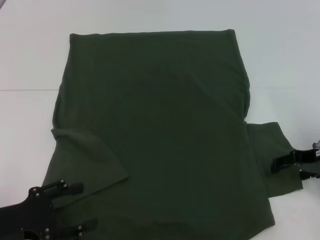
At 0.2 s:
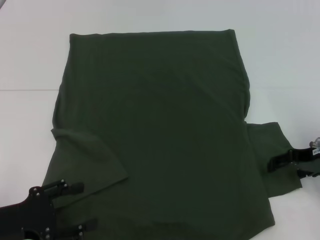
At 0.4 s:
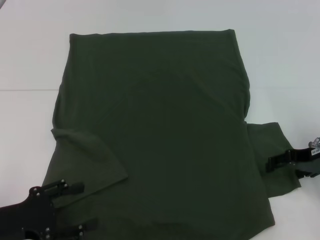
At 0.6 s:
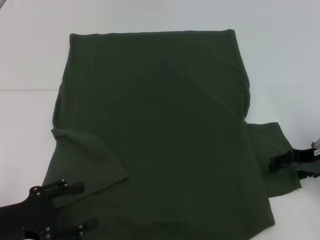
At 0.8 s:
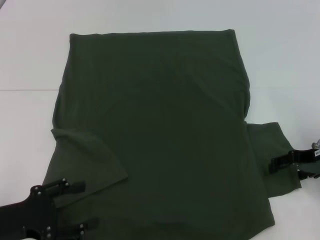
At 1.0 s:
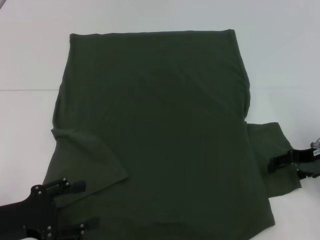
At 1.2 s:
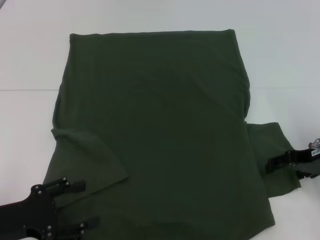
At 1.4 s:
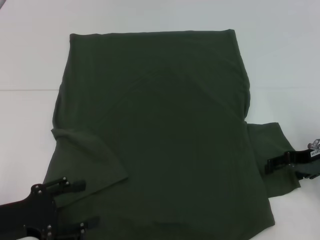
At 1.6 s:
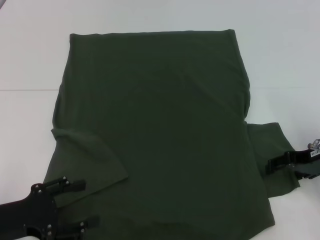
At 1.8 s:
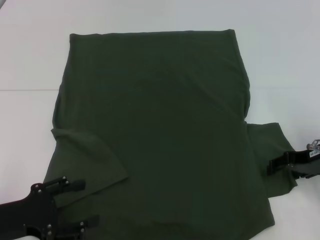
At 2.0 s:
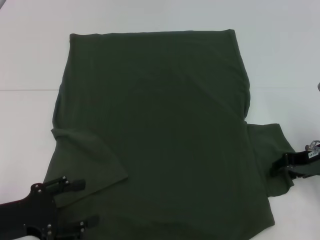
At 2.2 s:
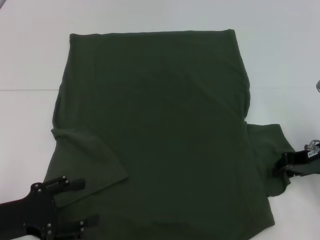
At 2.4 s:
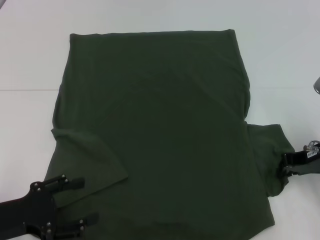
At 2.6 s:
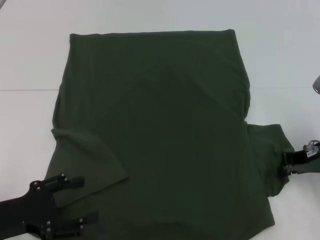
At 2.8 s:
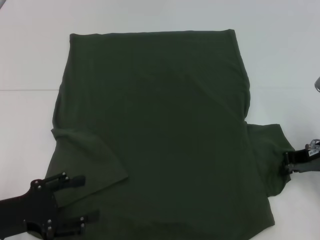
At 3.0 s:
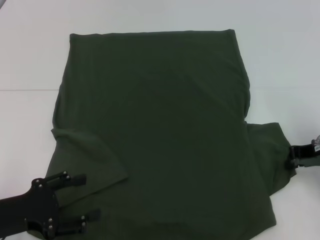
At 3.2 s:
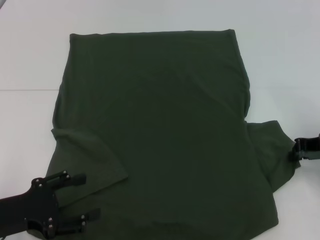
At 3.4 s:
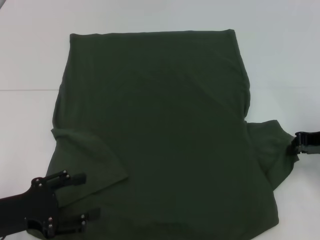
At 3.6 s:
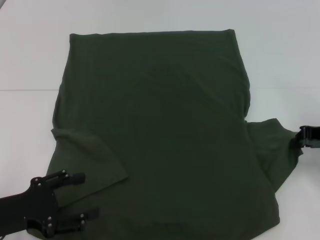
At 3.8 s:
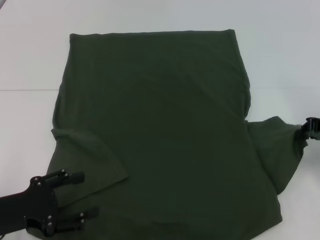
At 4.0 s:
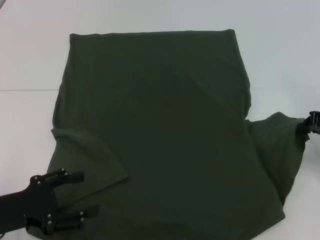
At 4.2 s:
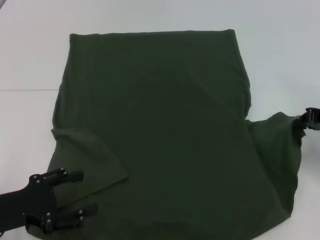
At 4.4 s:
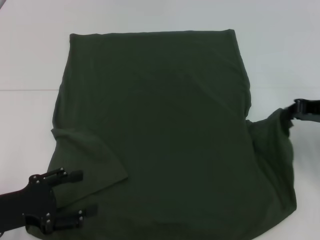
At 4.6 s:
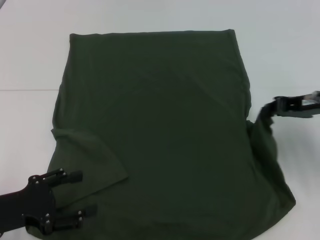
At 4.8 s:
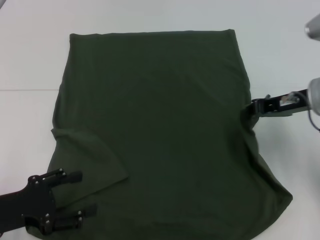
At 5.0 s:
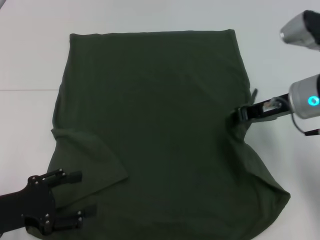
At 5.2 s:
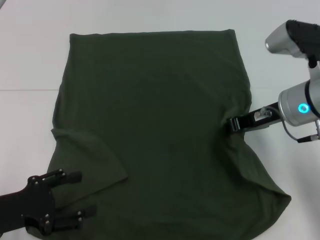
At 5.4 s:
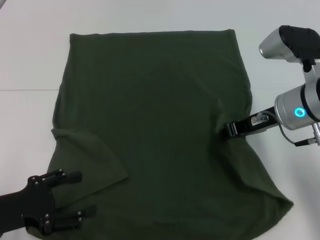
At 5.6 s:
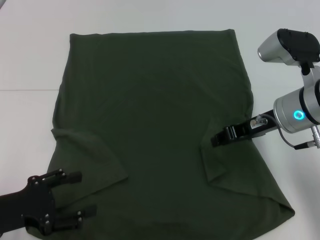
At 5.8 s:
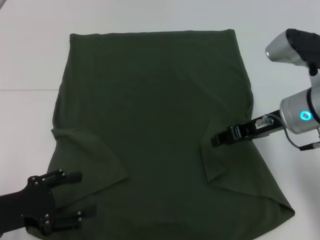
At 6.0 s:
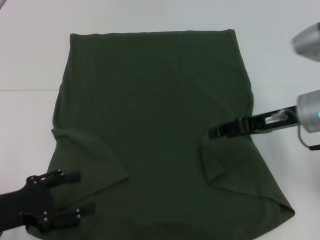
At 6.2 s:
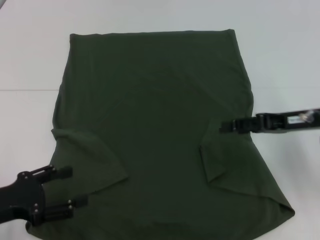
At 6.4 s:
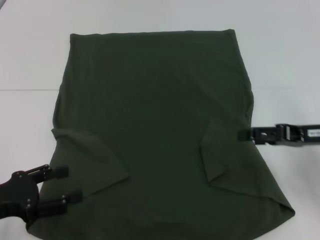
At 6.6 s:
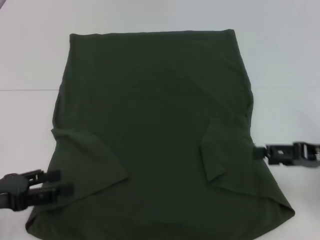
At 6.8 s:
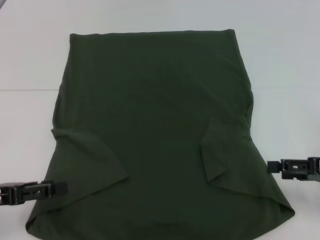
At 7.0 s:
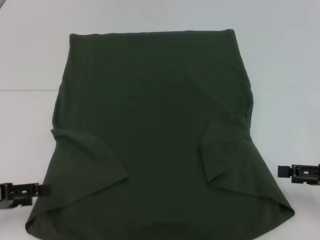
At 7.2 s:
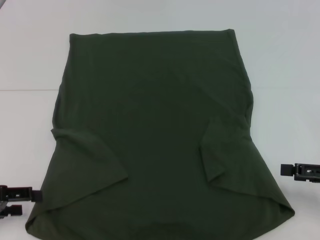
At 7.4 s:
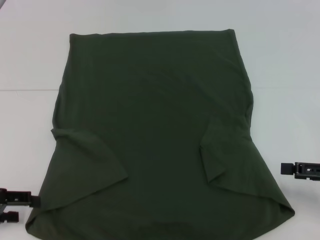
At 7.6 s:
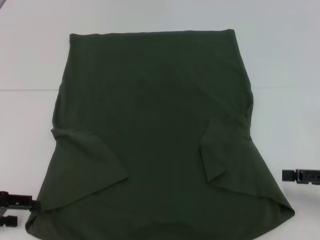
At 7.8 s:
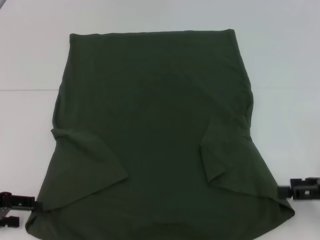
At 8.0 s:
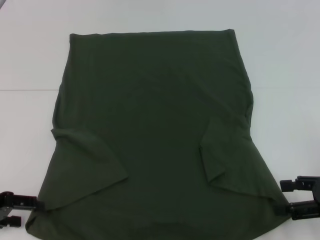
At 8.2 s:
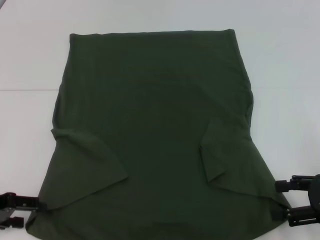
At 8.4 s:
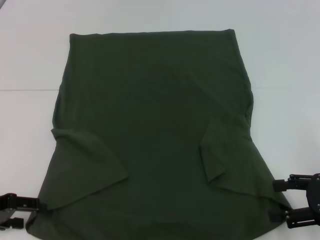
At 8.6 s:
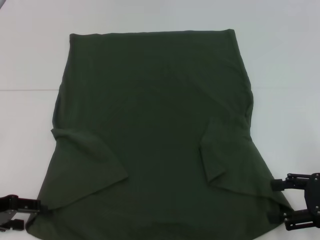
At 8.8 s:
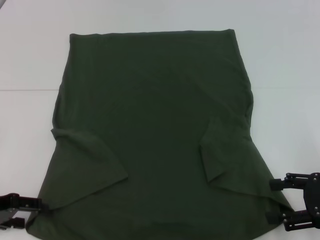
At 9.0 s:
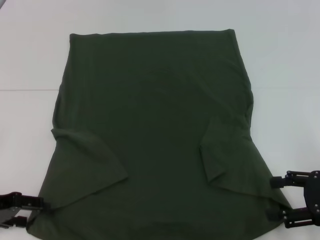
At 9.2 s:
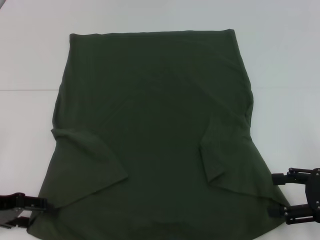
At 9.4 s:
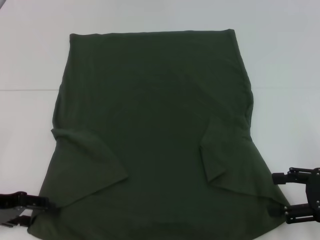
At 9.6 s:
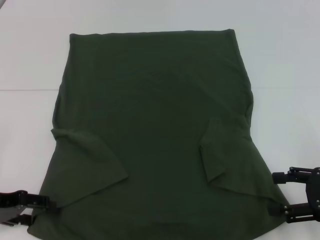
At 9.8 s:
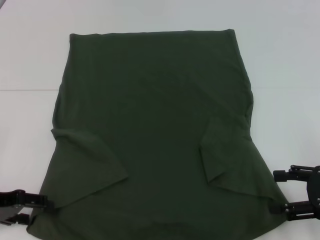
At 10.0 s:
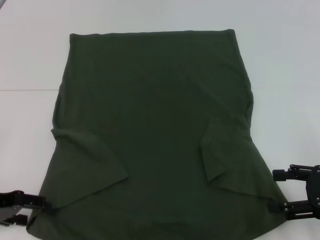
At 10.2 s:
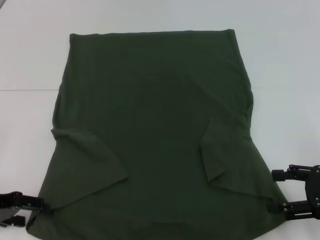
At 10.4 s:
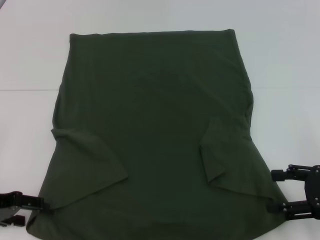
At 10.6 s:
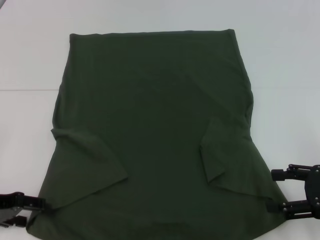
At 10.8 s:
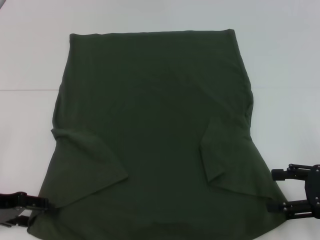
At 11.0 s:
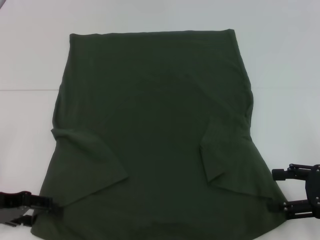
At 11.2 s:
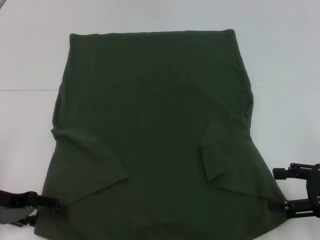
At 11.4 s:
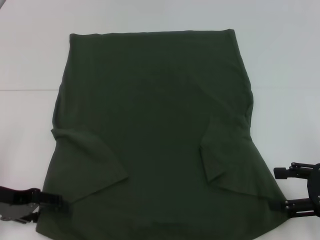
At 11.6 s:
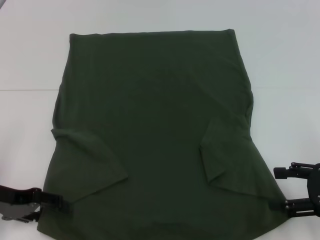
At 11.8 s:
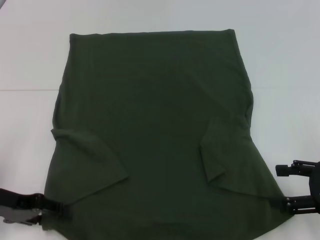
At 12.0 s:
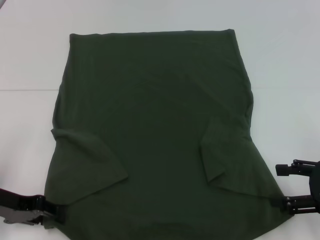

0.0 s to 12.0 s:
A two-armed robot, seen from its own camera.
Step, 0.0 to 5.6 s: Fold the bottom right sleeve with your right hand.
0.0 to 1.6 s: The two grippers keep their place.
1.6 to 3.0 s: The right gripper closes its fingers.
3.0 to 4.4 s: The grippers make only small movements.
4.4 to 6.0 s: The right gripper moves to the left, roughly 10 cm, and opens up.
6.0 to 7.6 s: The left gripper heads to the left, covering about 5 cm. Meanwhile the right gripper goes approximately 15 cm to the right, backward and downward, and opens up.
9.0 to 10.4 s: Neither gripper changes place.
10.4 to 12.0 s: The grippers stay close to where they were, moving slightly.

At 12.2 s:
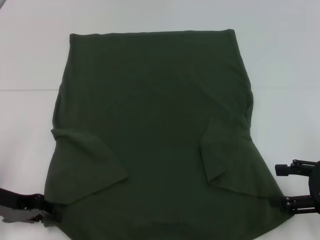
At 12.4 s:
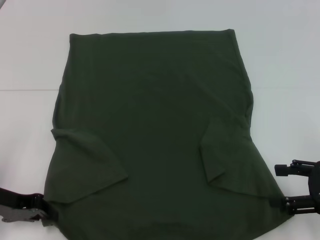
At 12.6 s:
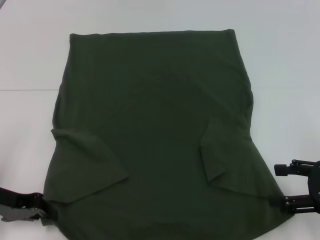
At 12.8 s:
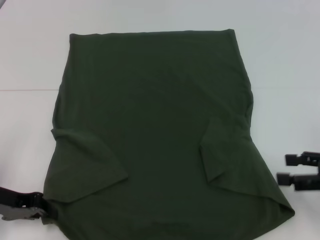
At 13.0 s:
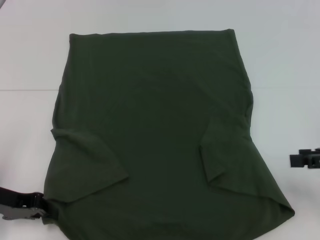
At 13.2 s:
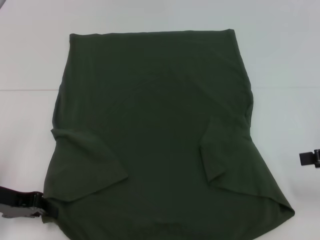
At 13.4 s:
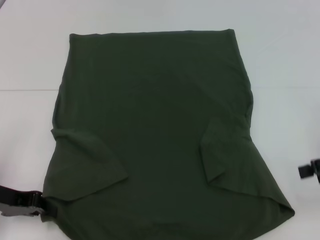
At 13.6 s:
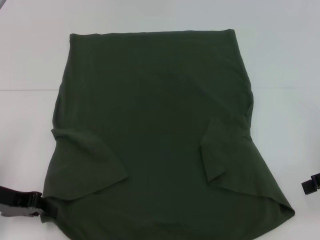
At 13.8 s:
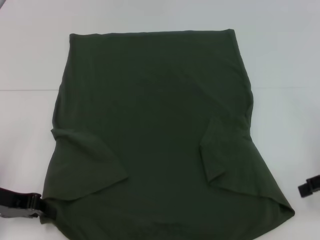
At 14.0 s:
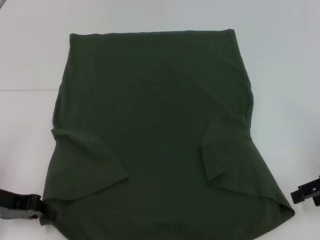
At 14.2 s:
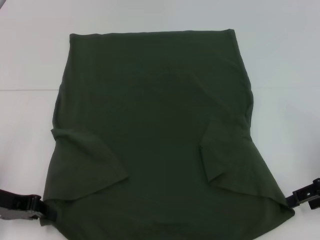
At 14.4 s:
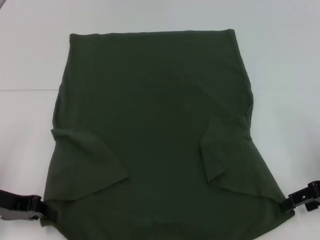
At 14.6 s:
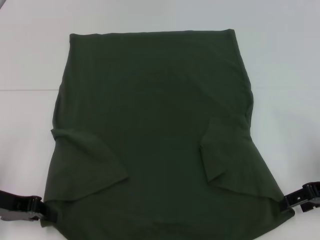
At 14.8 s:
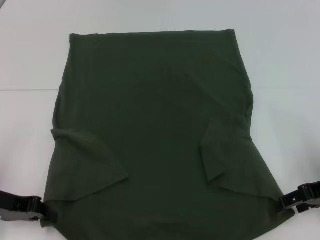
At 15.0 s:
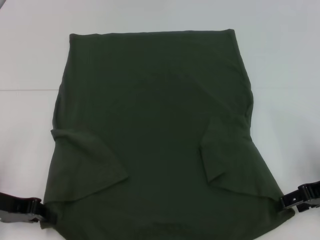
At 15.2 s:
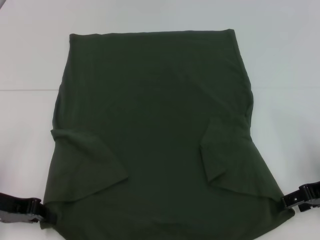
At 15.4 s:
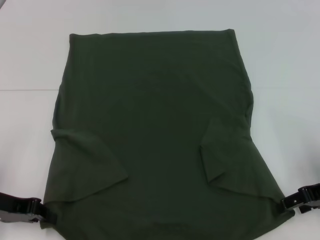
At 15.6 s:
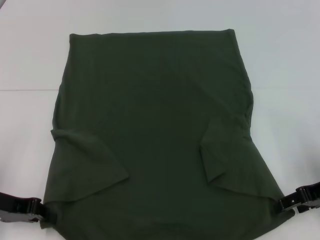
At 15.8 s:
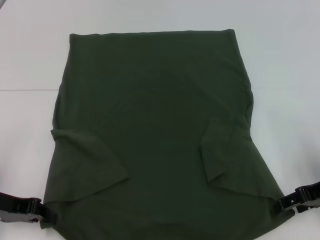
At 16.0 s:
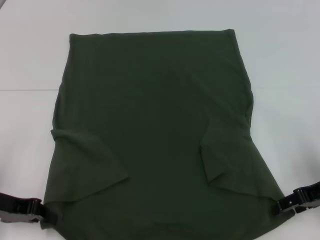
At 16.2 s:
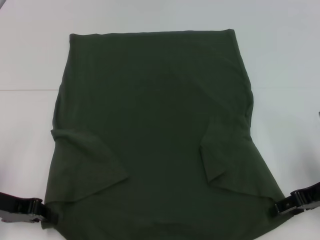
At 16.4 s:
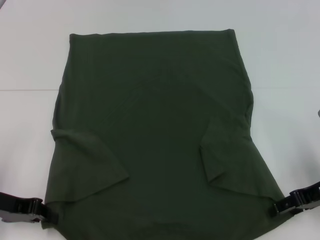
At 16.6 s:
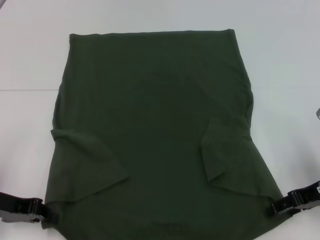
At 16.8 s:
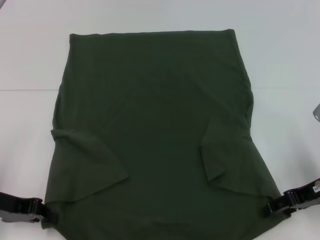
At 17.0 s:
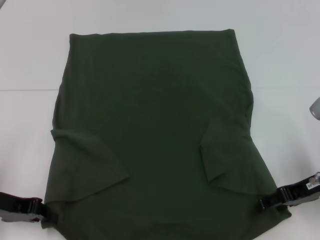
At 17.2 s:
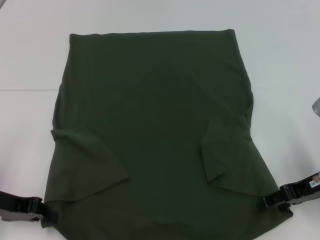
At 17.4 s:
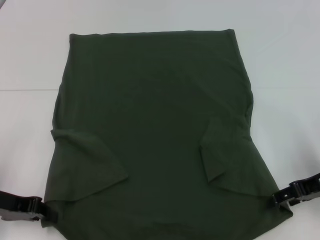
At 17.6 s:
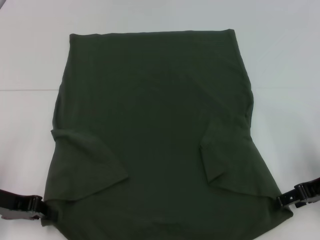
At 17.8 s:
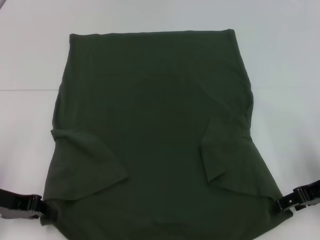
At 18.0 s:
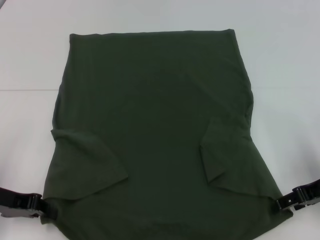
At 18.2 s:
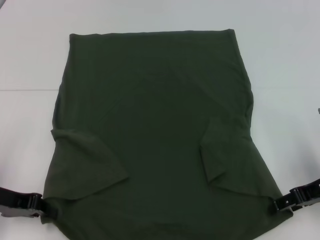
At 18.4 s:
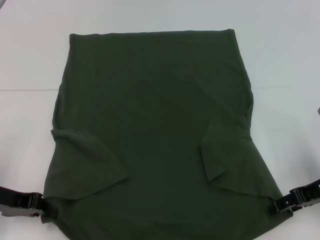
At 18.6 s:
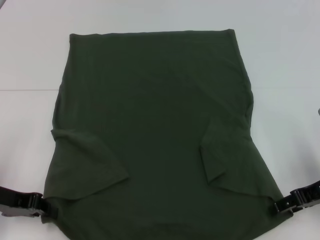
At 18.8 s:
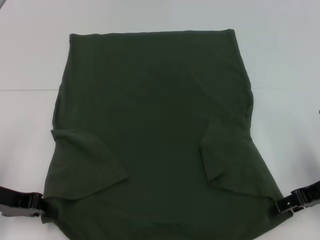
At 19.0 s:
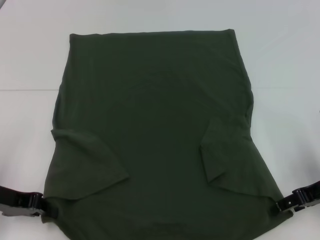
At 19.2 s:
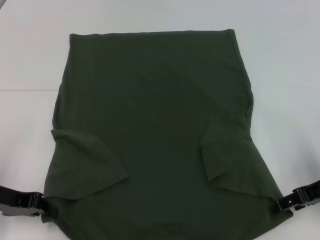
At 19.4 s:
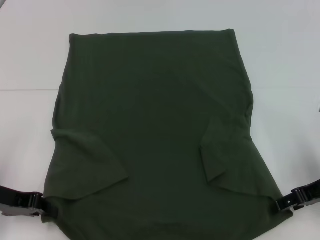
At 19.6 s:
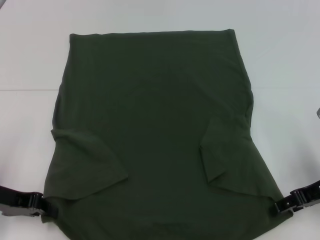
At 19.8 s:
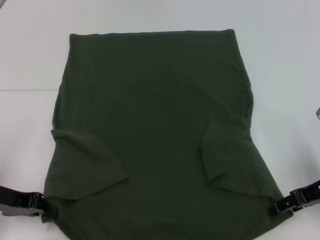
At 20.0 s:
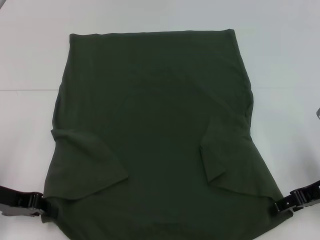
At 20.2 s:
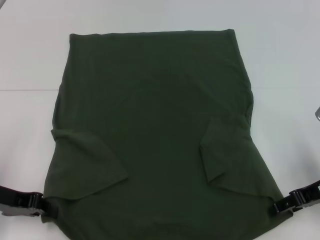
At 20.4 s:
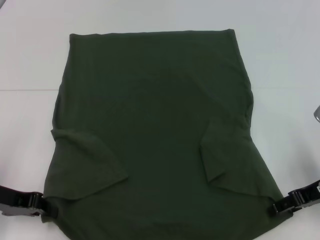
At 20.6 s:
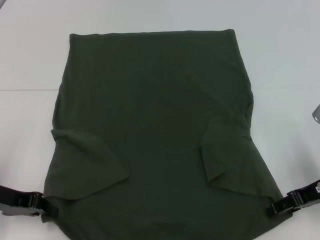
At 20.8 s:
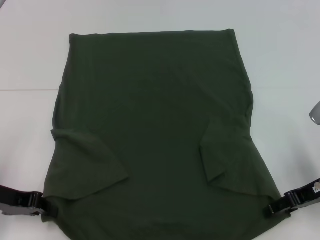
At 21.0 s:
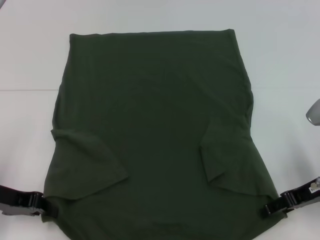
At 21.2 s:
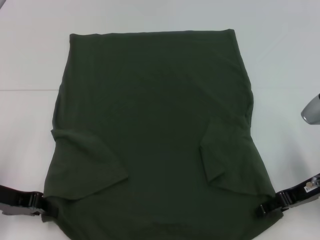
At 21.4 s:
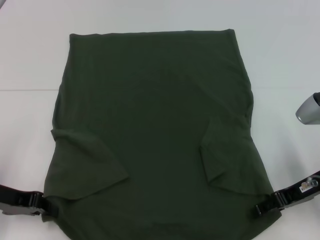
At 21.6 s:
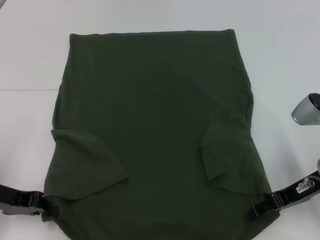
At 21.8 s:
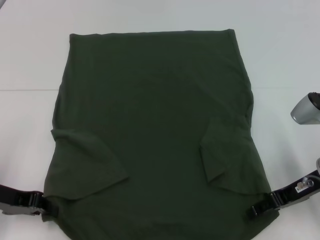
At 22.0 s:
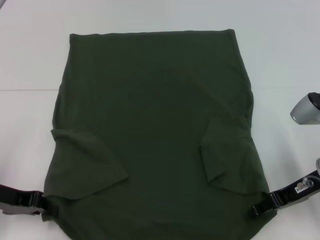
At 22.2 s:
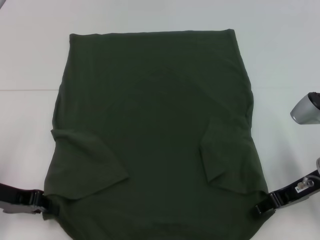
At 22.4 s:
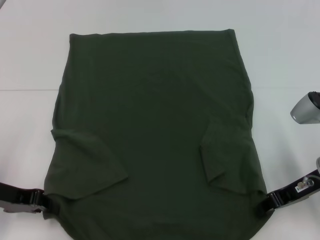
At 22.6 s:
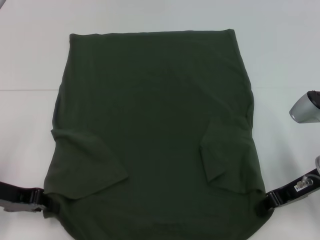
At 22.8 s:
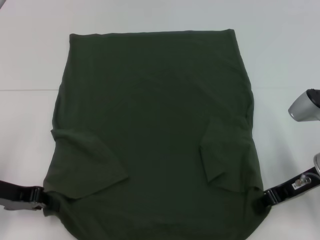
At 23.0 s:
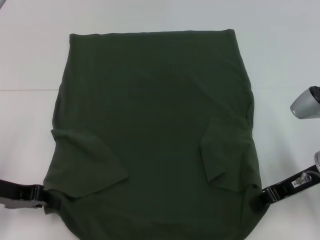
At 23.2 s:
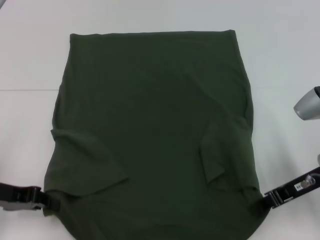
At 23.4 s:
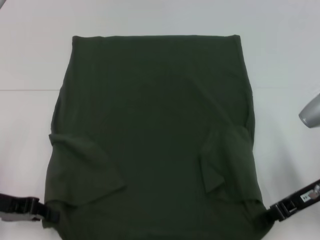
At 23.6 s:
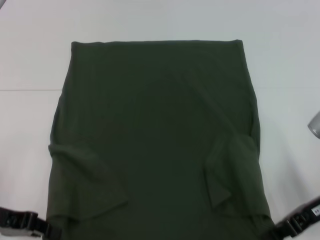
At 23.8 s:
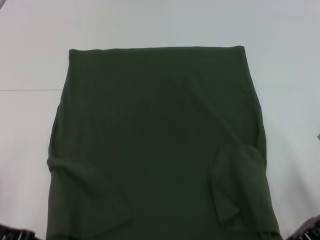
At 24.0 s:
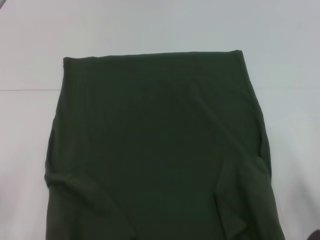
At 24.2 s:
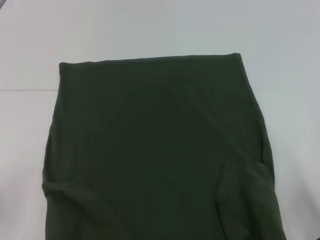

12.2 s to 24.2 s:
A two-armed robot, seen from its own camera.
Step, 12.6 to 22.6 s: Grab the bottom right corner with your right hand.
12.2 to 13.8 s: The left gripper closes up. Meanwhile the right gripper heads forward and upward, covering about 5 cm.
13.8 to 15.2 s: The right gripper shifts by some 5 cm.
15.2 to 16.6 s: The grippers stay close to where they were, moving slightly.
16.6 to 19.8 s: Both grippers stay about where they are.
19.8 to 21.2 s: The grippers make only small movements.
21.2 to 22.6 s: The right gripper closes up.
22.6 to 24.2 s: Both grippers move backward, approximately 5 cm.
